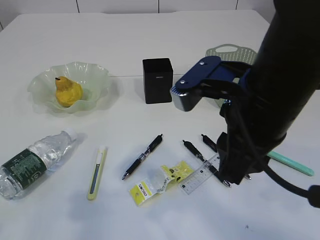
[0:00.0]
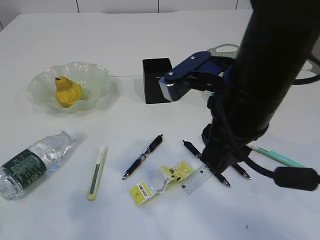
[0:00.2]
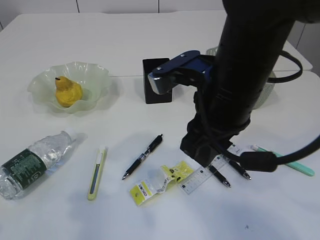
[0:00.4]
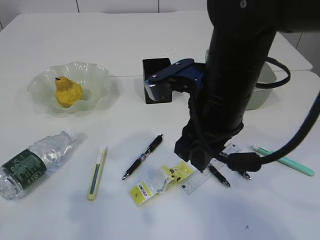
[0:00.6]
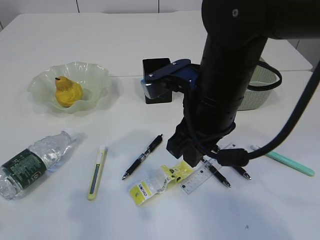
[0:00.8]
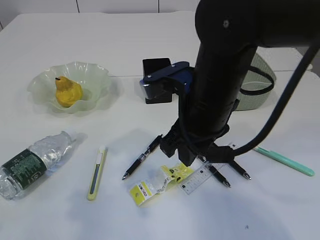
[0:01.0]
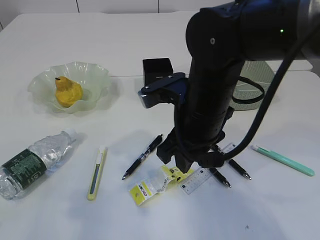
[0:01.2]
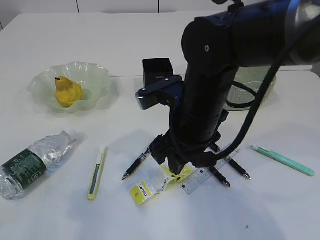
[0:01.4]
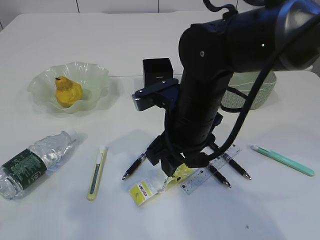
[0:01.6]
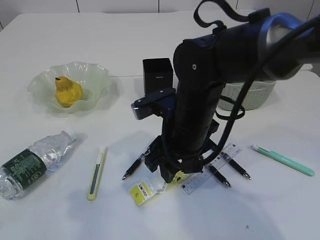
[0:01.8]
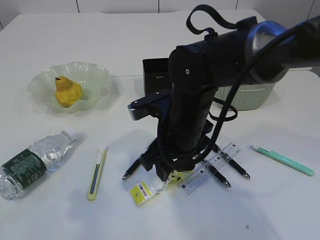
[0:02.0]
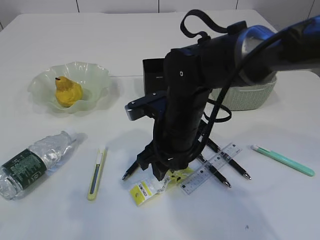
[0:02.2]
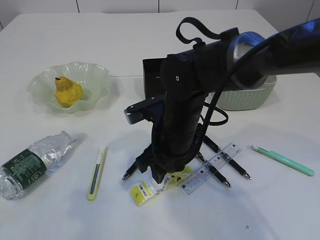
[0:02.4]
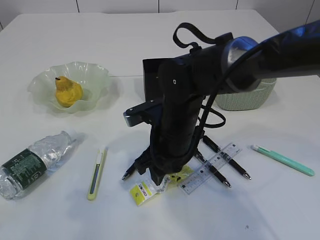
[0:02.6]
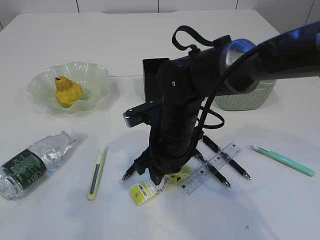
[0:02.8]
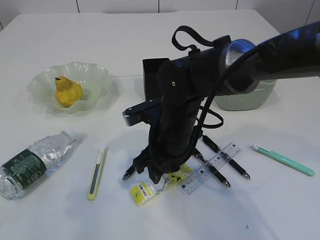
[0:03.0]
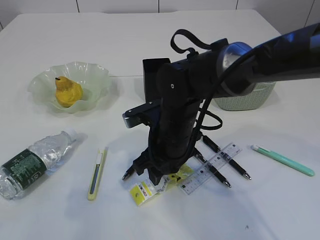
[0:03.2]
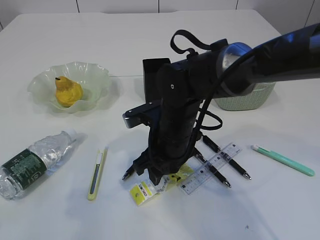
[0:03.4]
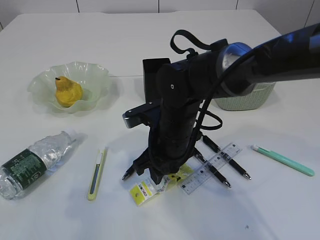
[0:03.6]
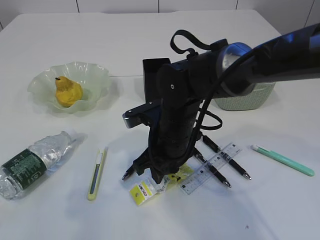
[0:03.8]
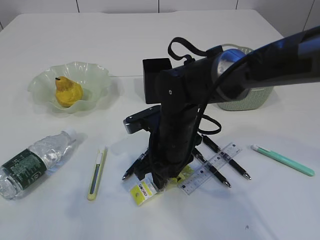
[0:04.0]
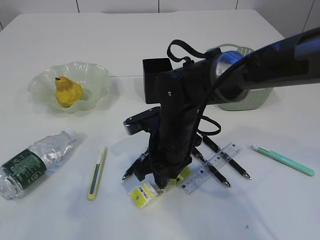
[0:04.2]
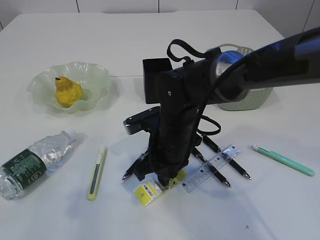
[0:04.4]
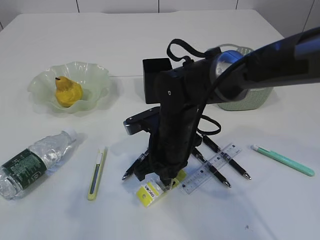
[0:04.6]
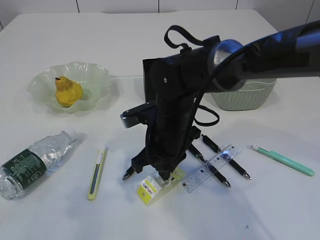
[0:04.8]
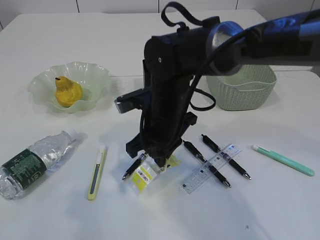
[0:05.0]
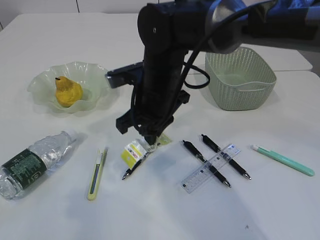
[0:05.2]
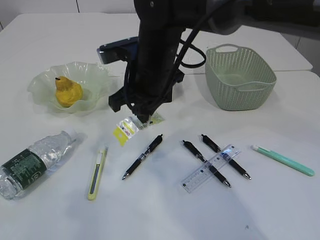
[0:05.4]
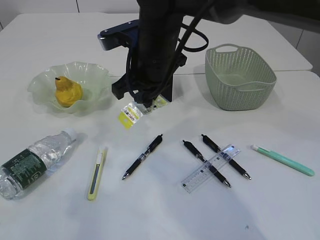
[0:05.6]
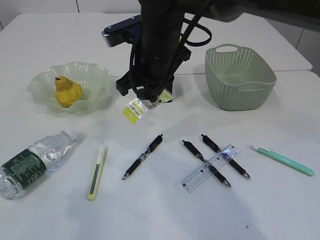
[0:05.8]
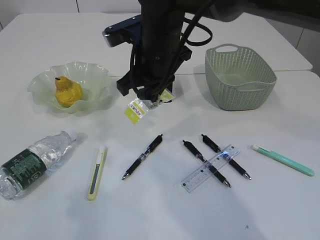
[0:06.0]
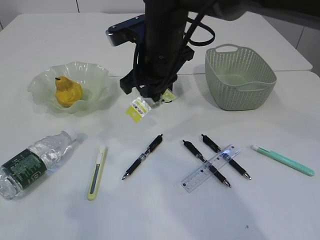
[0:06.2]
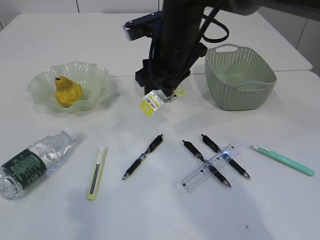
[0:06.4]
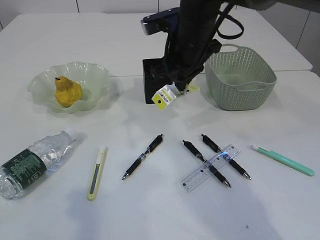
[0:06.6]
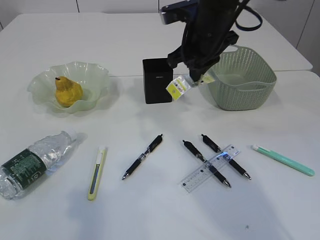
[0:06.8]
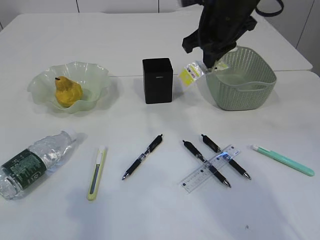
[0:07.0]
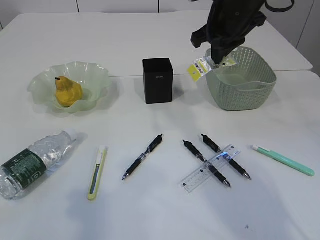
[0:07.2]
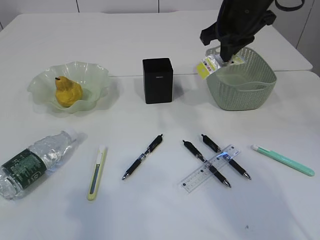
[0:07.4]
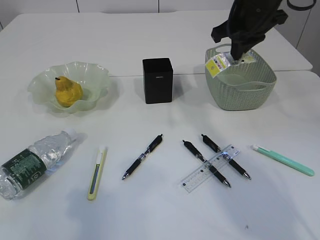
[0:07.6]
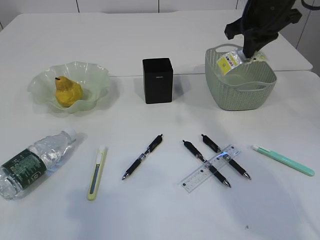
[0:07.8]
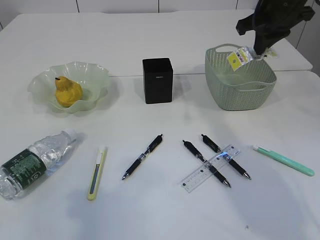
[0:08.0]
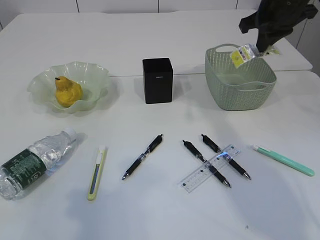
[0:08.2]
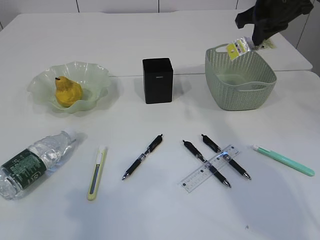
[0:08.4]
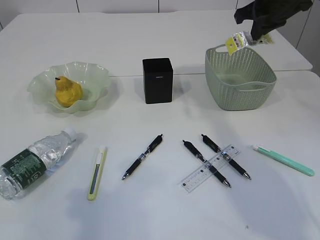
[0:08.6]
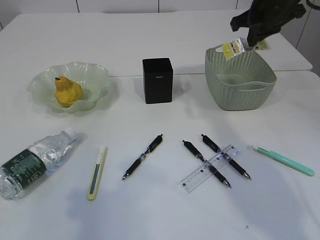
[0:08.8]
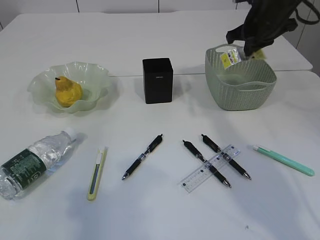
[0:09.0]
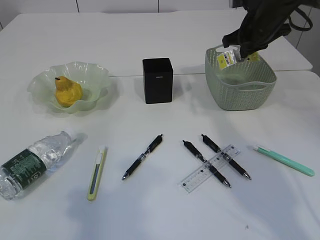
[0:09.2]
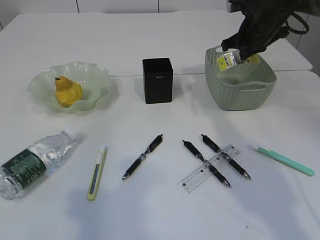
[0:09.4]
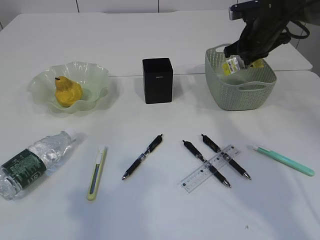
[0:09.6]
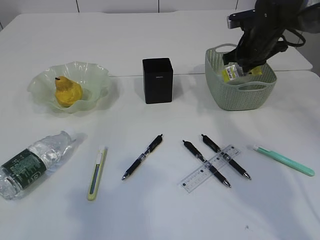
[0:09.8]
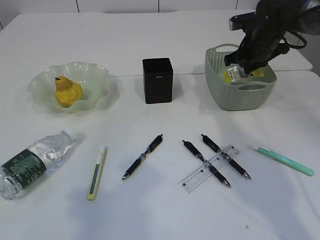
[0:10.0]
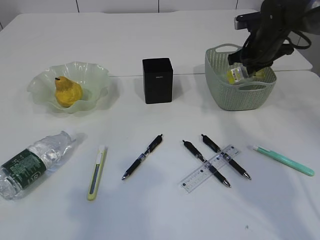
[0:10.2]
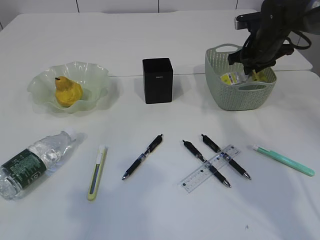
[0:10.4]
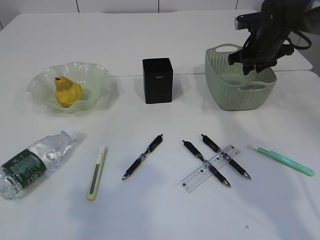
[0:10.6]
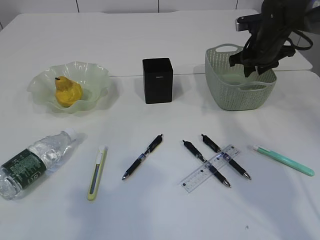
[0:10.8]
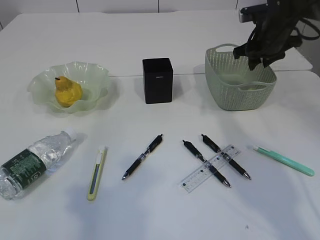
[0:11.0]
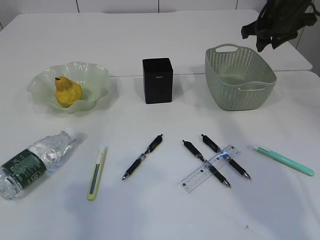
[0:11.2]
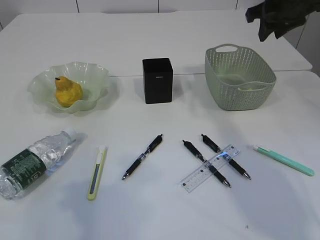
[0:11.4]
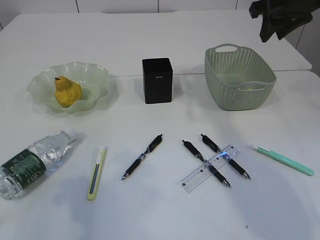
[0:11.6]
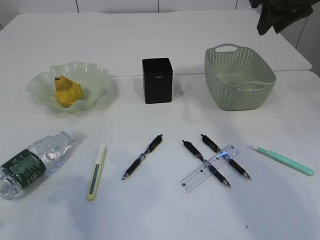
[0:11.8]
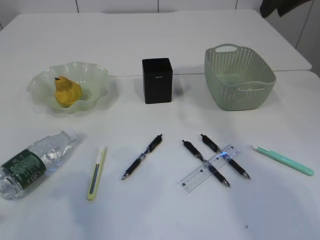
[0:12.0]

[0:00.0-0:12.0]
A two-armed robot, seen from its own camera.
Step, 0:00.0 to 0:05.2: Pick up the plastic.
Step, 0:05.4 to 0:10.8: Place the plastic in the basket.
0:00.0 to 0:01.6: The right gripper travels downward, forward and to the left by about 15 cm.
0:01.6 to 0:03.0: The right gripper is displaced downward by some 5 cm.
0:03.0 to 0:04.4: The right gripper closes.
0:04.4 to 0:06.0: The right gripper goes some 15 cm upward.
0:06.0 to 0:07.6: The right gripper shifts roughly 20 cm to the right.
0:07.6 to 0:09.0: The right gripper ends up approximately 10 cm from where it was.
0:09.0 to 0:10.4: The right gripper goes about 5 cm downward, and opens its fingers.
0:10.4 to 0:12.0: The right gripper travels upward and backward by about 20 cm, while the left gripper moves forward, roughly 5 cm.

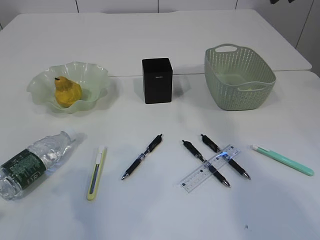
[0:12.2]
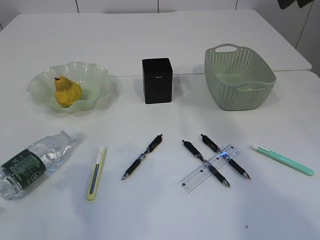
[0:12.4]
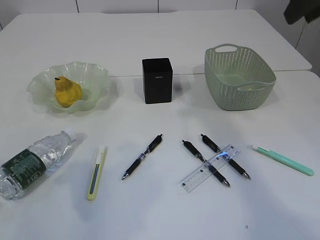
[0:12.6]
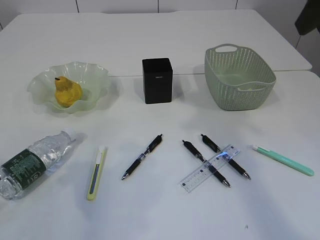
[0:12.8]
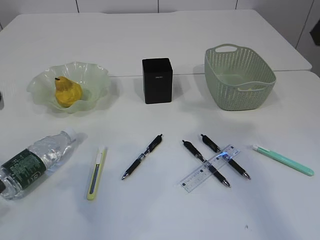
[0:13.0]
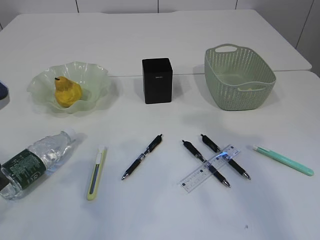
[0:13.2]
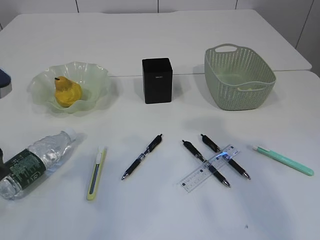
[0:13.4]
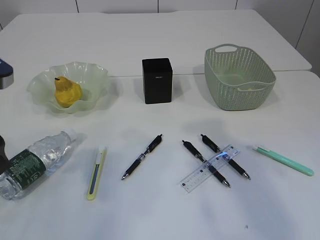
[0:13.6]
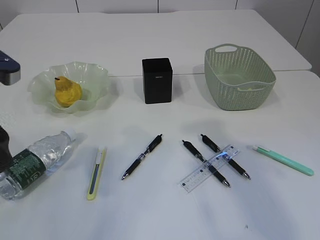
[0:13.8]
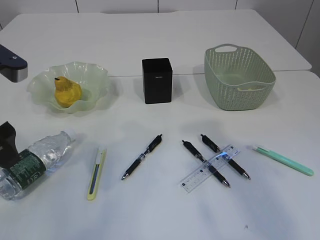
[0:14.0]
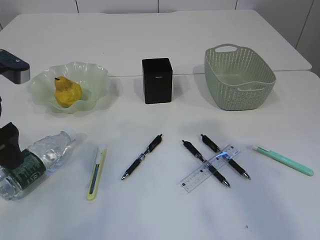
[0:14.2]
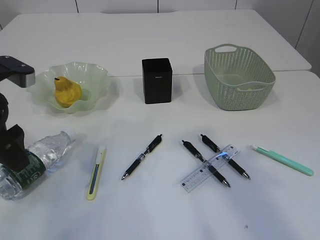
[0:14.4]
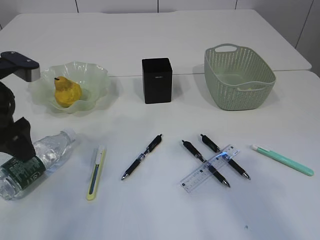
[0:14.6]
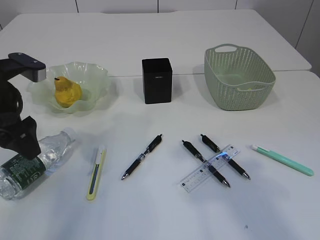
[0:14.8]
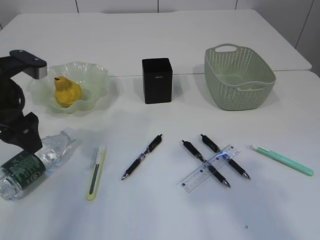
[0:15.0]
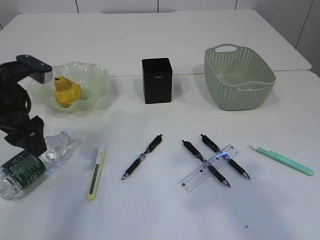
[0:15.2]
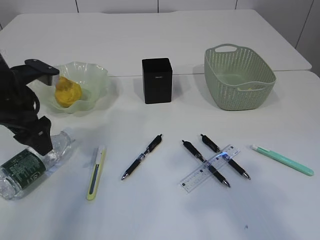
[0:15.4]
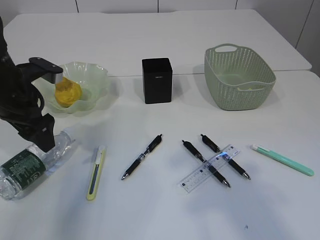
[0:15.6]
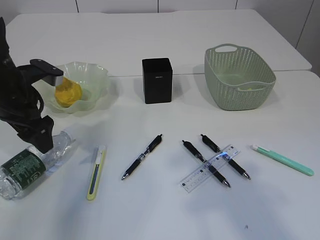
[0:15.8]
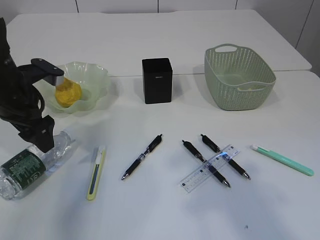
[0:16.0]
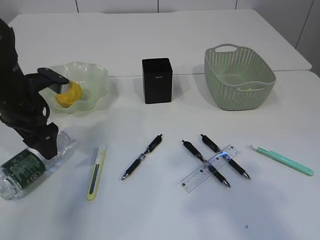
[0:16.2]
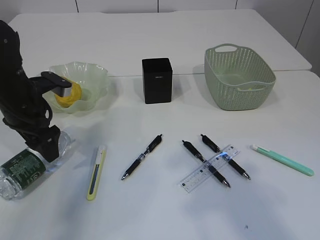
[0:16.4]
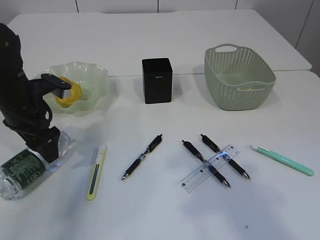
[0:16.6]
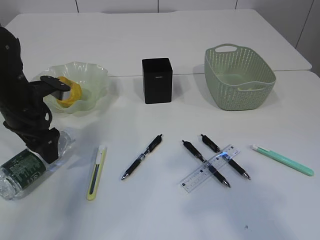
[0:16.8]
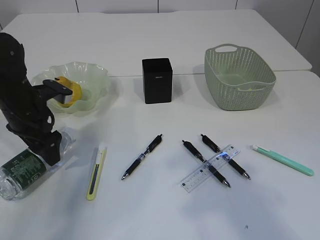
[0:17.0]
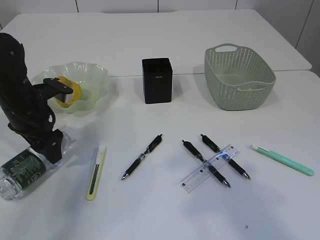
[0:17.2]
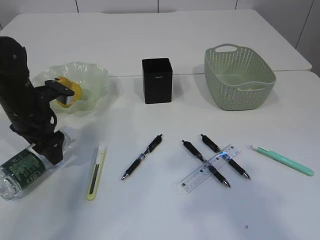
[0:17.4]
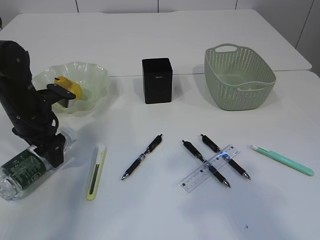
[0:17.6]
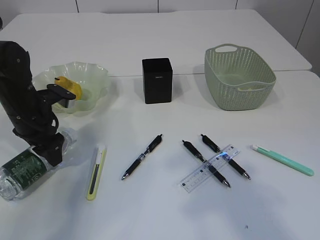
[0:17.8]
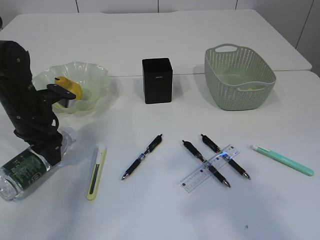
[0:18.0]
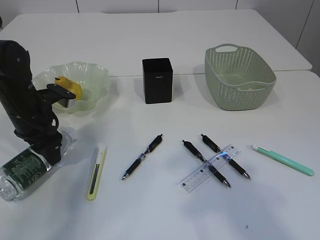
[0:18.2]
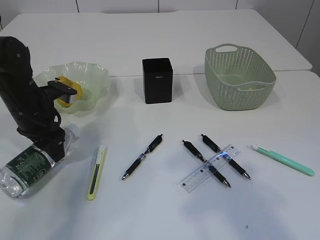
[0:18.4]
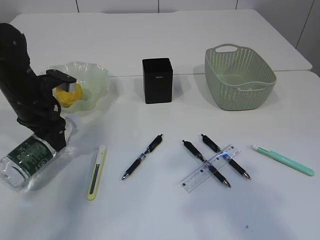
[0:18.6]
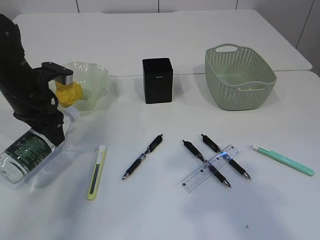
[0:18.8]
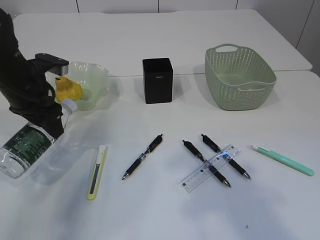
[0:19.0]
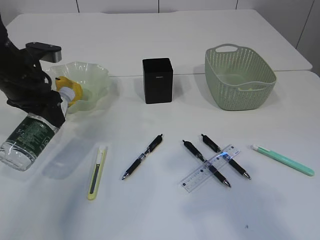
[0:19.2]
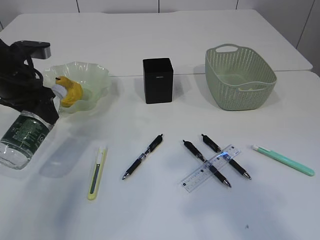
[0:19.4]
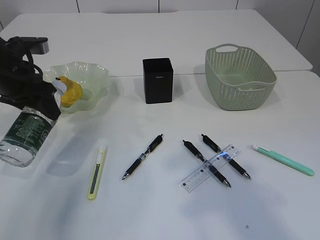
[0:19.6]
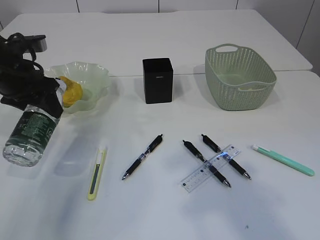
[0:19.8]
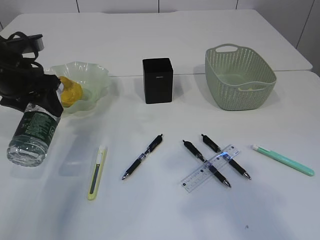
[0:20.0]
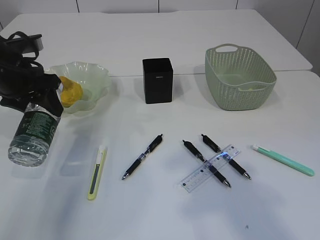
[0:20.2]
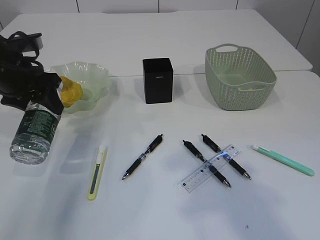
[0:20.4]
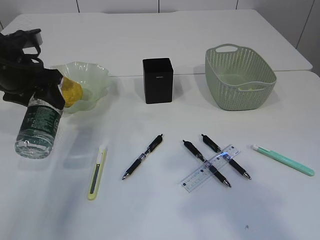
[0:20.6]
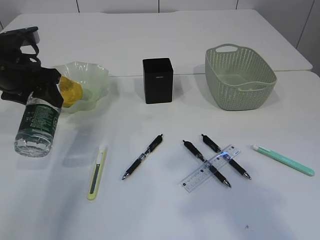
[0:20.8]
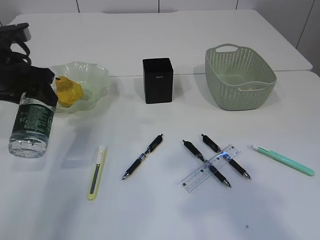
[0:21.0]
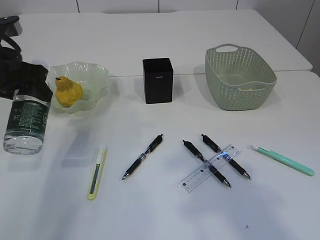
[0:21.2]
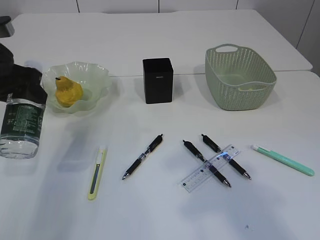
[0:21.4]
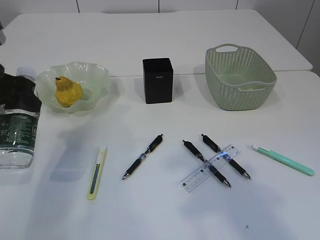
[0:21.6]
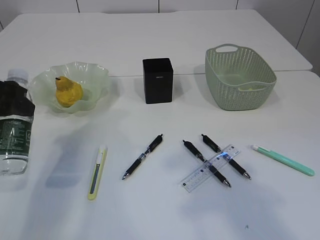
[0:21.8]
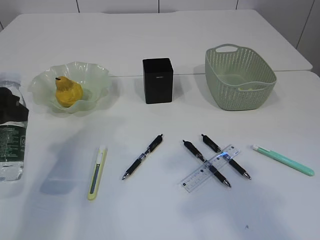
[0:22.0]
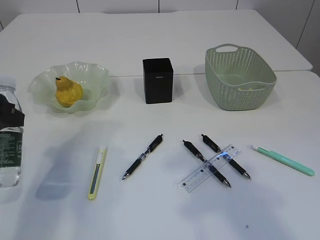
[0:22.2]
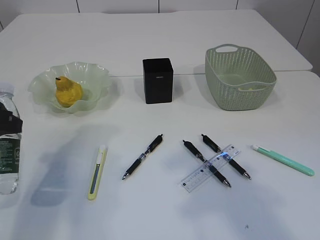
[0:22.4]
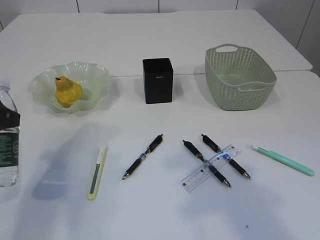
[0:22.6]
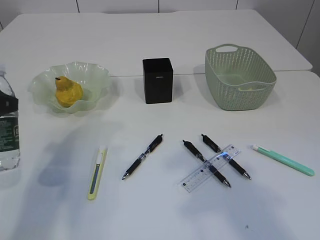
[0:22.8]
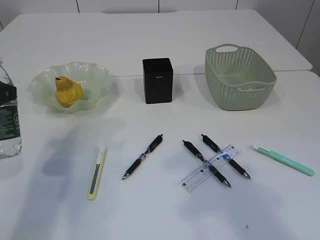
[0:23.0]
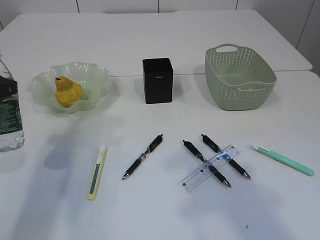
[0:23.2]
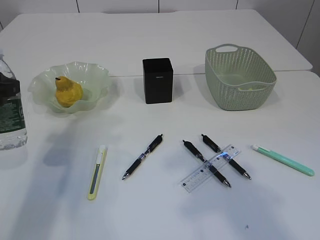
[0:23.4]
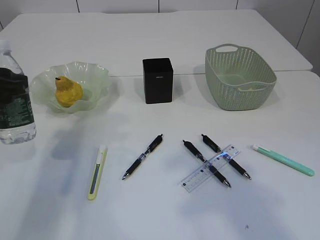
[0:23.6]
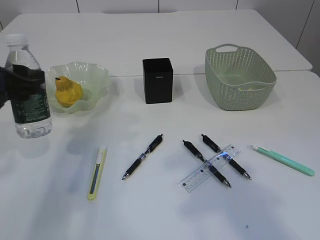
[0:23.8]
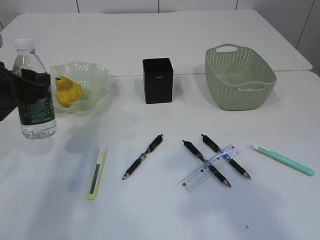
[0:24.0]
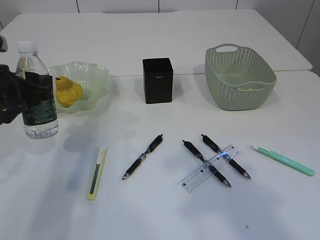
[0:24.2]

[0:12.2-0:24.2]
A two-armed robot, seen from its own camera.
Step, 0:12.2 to 0:19.8: Pick up the bottle with the left arm.
0:12.2 to 0:13.8: The left gripper heads forward, covering approximately 5 cm; the right gripper moves backward, some 20 cm.
0:13.8 to 0:15.2: The left gripper goes approximately 10 cm forward and downward.
0:15.2 to 0:16.6: The left gripper goes some 5 cm downward.
0:16.6 to 0:18.2: The left gripper closes up.
0:18.2 to 0:19.8: The left gripper moves upward, roughly 10 cm.
0:19.8 to 0:21.2: The grippers make only small movements.
0:21.2 to 0:22.6: The left gripper heads backward, covering some 10 cm.
0:22.6 to 0:24.2: The left gripper travels forward by about 5 cm.
